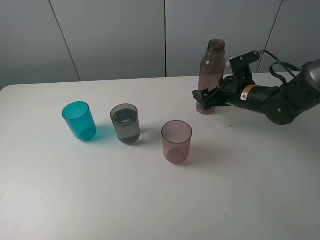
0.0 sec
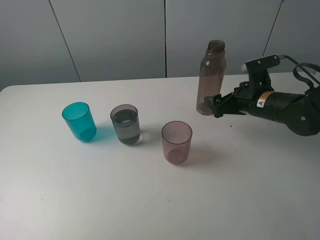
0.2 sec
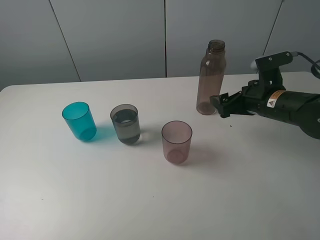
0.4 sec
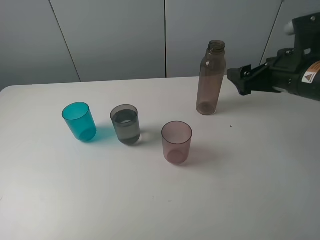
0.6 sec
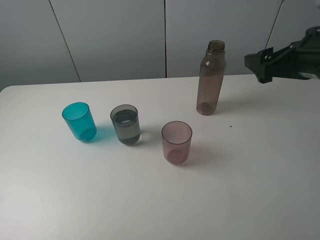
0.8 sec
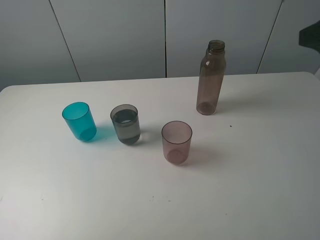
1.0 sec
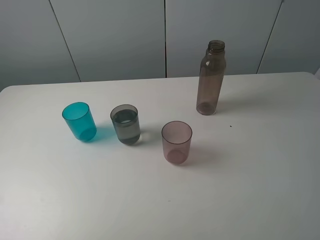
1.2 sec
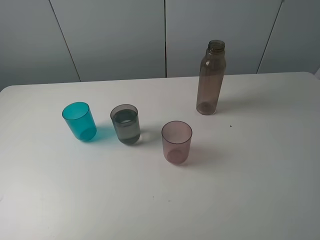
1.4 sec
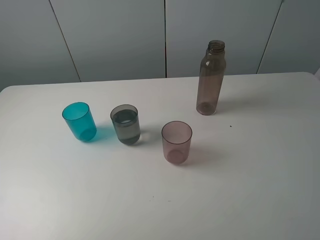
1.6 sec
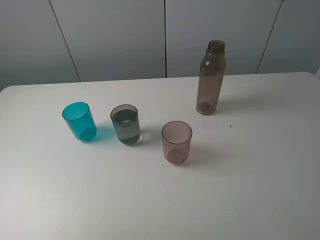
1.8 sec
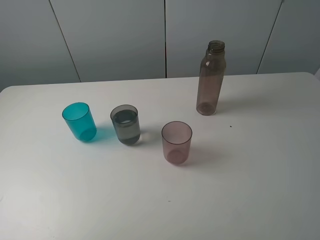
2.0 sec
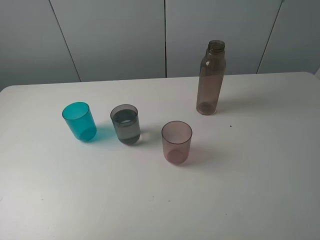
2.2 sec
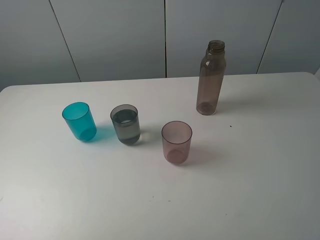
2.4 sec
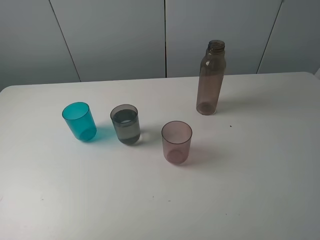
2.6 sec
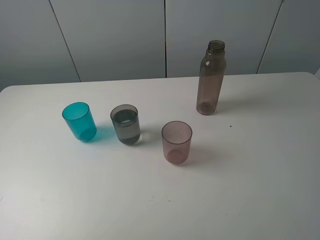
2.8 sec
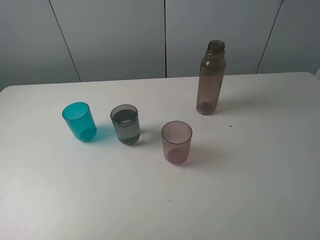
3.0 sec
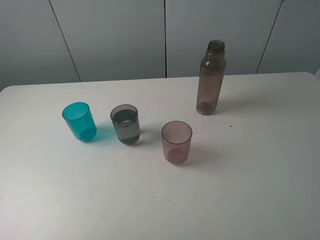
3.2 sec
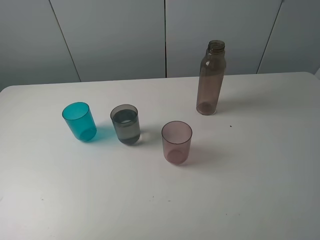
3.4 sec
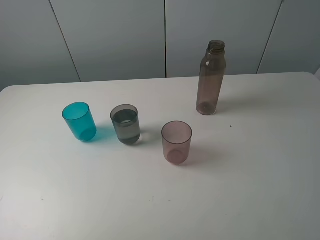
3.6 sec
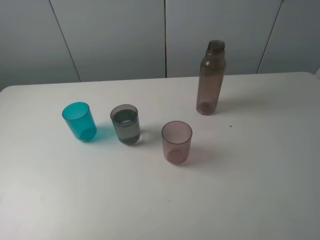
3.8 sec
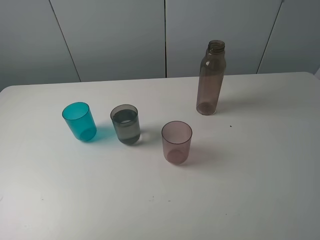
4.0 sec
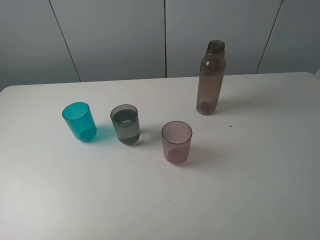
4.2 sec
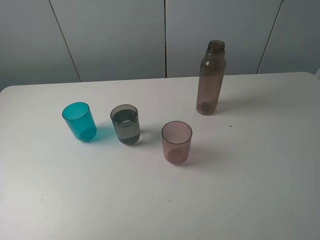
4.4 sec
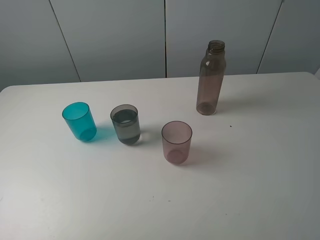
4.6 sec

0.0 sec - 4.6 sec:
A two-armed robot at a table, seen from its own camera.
Task of the whole recording: pick up the bottle filled with water and pour water into the middle cup of the three cups.
0.0 sec - 1.6 sec: The right gripper shifts roughly 40 cm backward and upward.
3.0 sec - 4.6 sec: Both grippers stay about where they are.

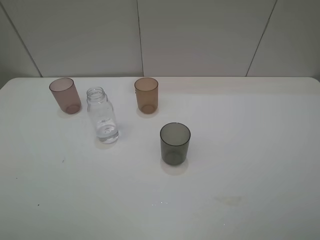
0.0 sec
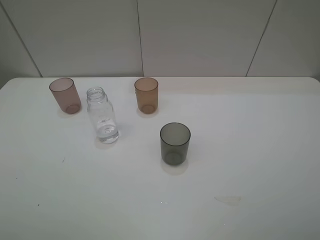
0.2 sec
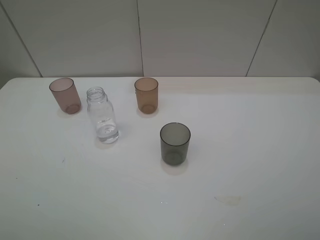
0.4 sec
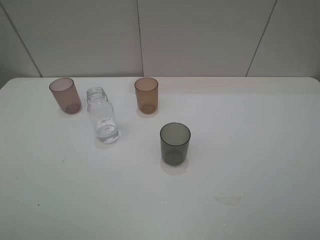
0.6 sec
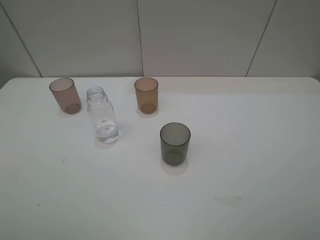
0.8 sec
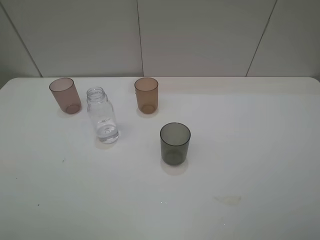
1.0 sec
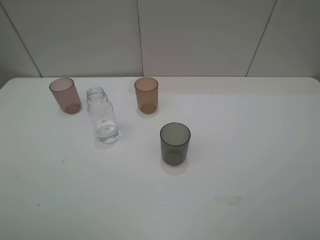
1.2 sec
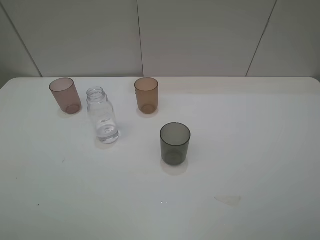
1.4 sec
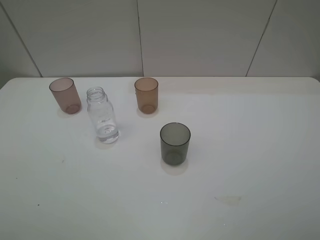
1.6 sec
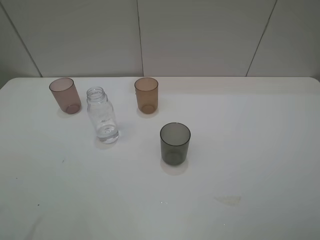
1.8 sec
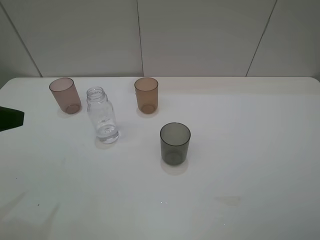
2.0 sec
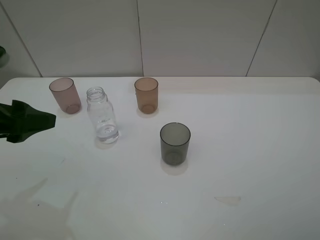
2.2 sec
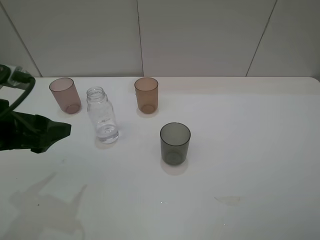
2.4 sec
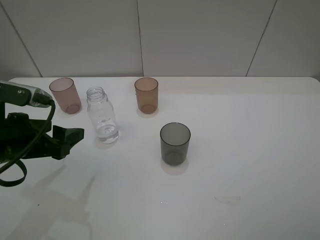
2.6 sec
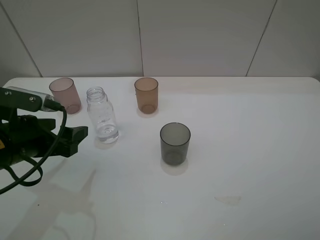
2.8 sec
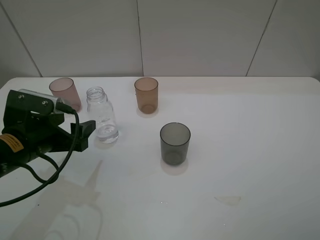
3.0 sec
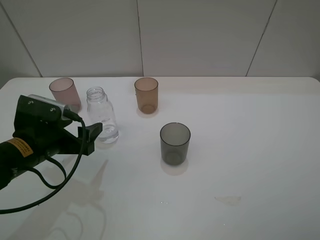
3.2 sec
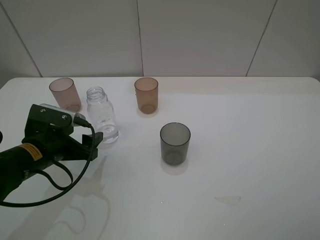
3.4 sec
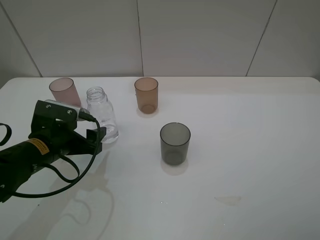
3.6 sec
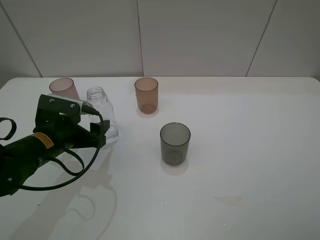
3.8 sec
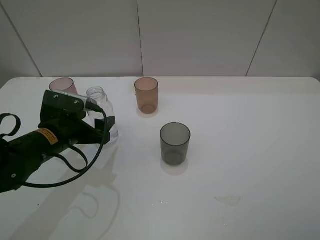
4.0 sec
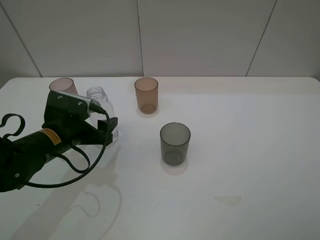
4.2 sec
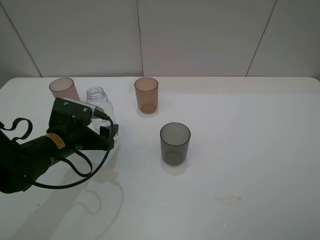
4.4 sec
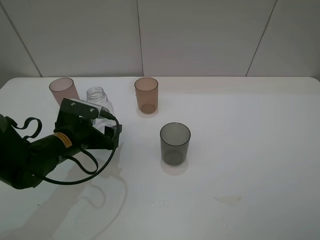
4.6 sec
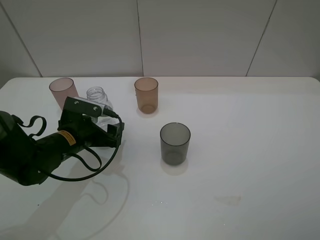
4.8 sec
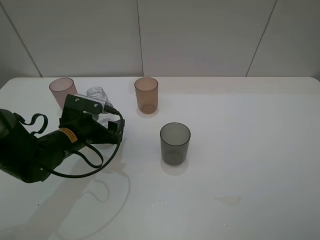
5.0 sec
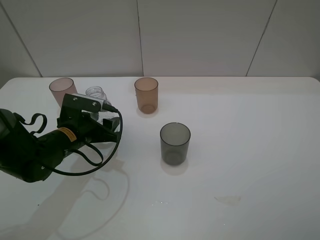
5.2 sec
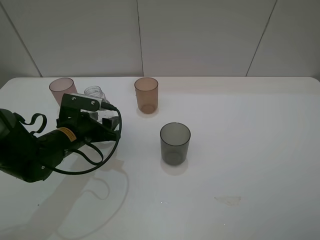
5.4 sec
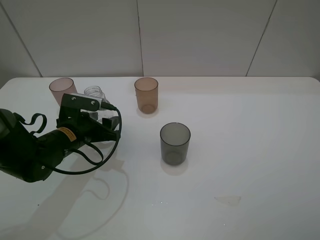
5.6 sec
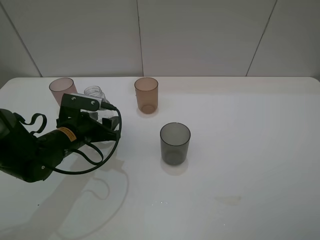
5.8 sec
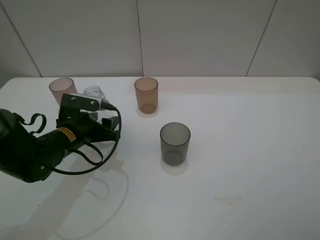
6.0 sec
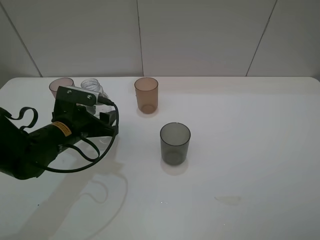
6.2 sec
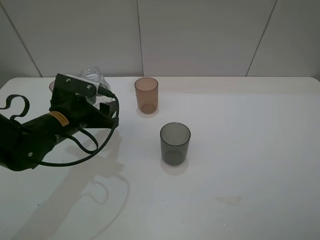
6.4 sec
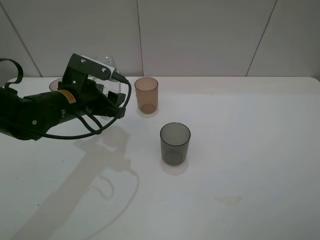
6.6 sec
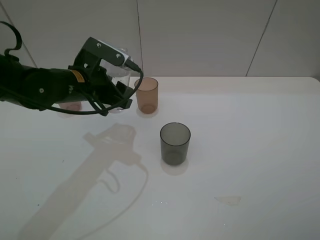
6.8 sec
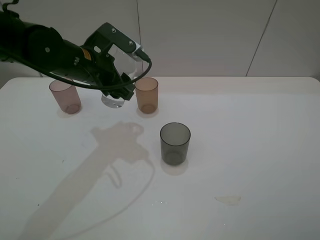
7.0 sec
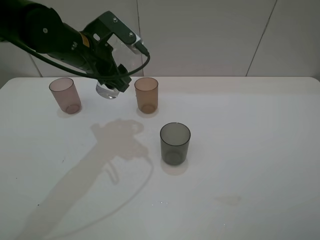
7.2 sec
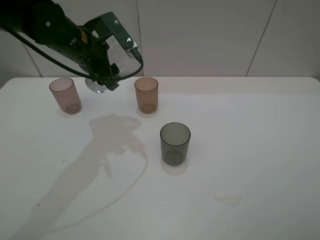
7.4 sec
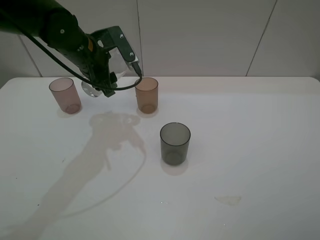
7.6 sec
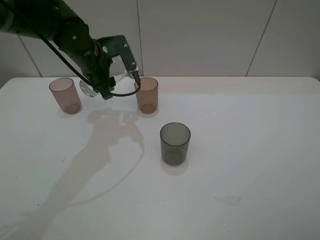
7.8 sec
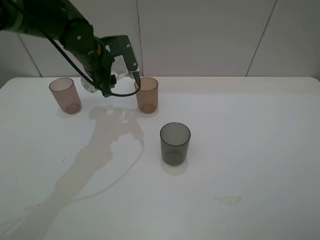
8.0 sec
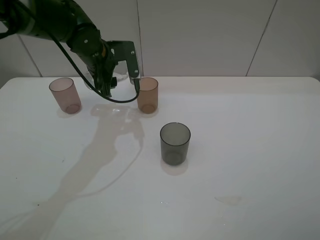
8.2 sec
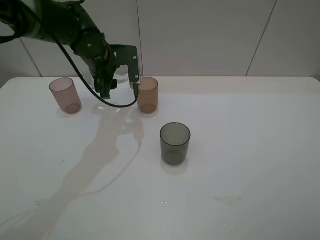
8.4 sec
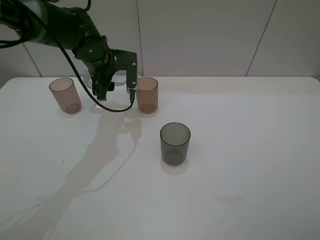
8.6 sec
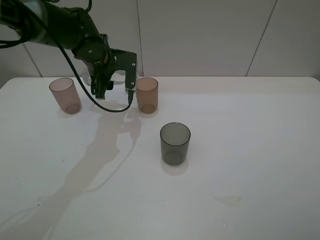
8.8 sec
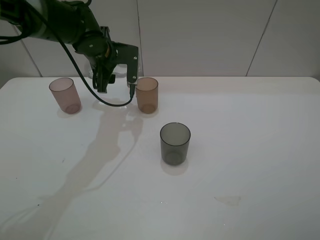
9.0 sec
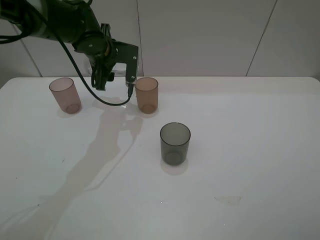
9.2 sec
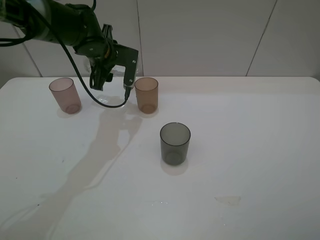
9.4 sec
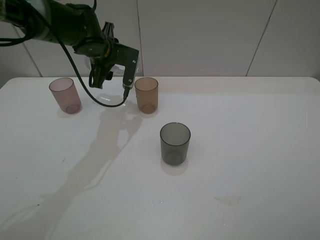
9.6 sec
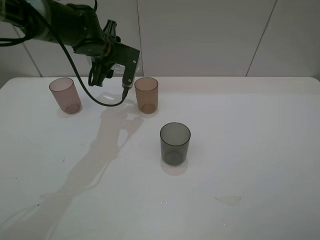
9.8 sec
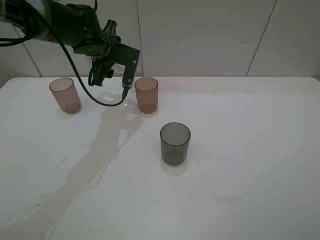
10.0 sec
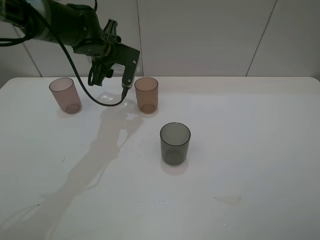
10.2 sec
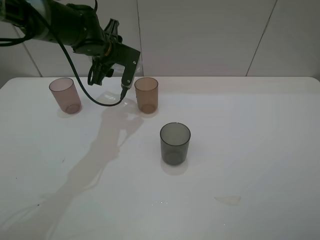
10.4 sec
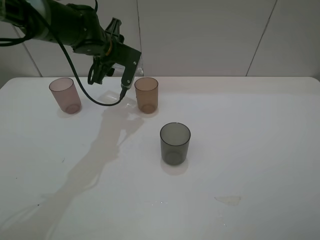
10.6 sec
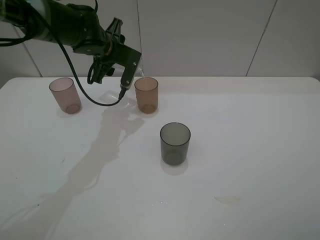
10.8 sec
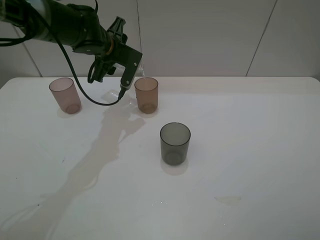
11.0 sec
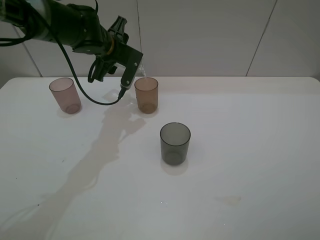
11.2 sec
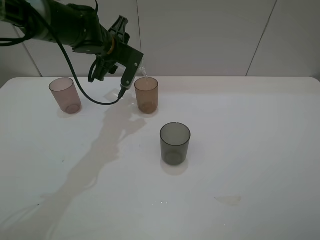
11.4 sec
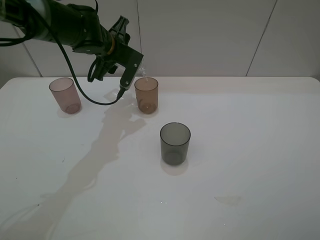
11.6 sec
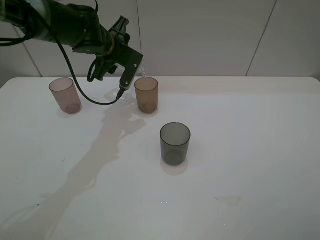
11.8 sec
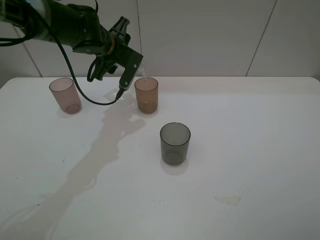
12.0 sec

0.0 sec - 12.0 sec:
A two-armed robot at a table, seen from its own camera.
Task of the whole recording: pick up the bottle filled with water and pour water into the middle cup of the three cups.
Step, 0.0 sec - 5.4 sec: Grasp the transparent bottle with the left gripper.
Step, 5.6 sec - 10.0 sec: Pour water from transparent bottle to brown cup with the left gripper.
1.6 sec - 3.0 sec: The left gripper heads downward, forward and to the right, covering approximately 25 cm.
3.0 sec - 4.4 sec: The left gripper moves downward, about 5 cm.
4.4 sec - 6.0 sec: The left gripper closes its fingers.
6.0 sec - 7.6 sec: The left gripper goes approximately 15 cm upward and forward.
7.6 sec - 9.0 sec: The left gripper changes place by about 5 cm.
9.0 sec - 10.4 sec: The grippers stay close to where they were, moving slightly.
10.4 sec - 12.0 sec: The grippers stay close to where they were, moving slightly.

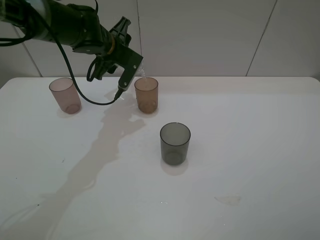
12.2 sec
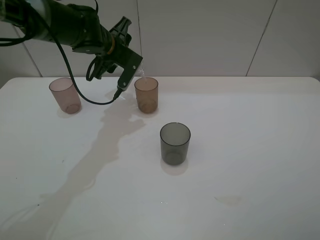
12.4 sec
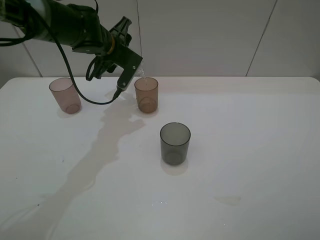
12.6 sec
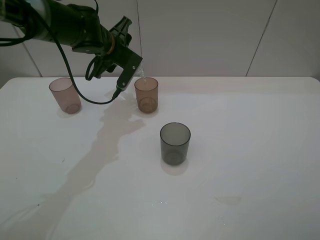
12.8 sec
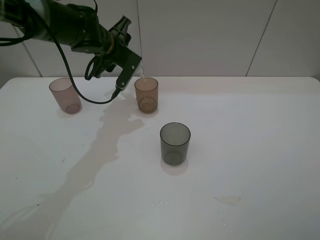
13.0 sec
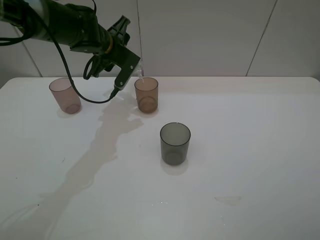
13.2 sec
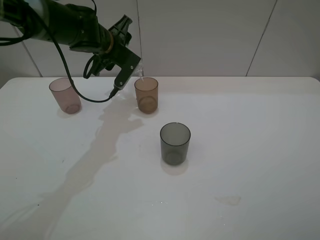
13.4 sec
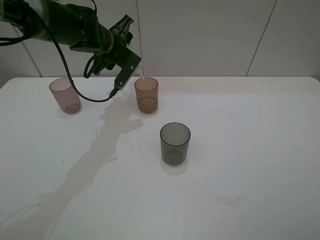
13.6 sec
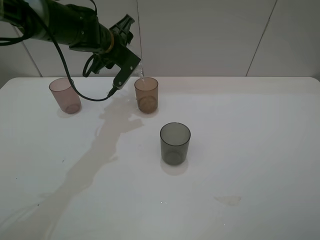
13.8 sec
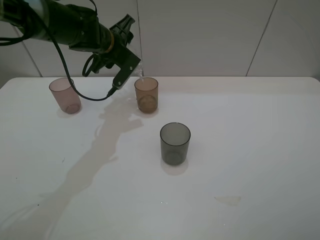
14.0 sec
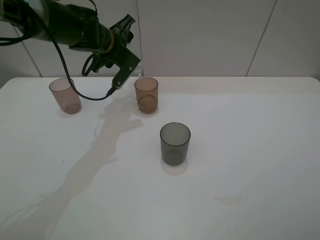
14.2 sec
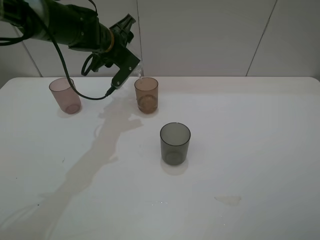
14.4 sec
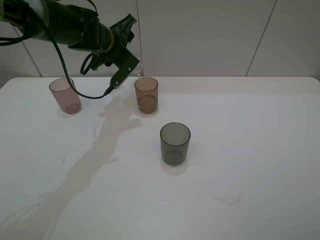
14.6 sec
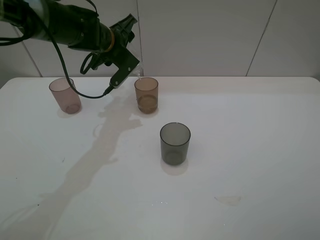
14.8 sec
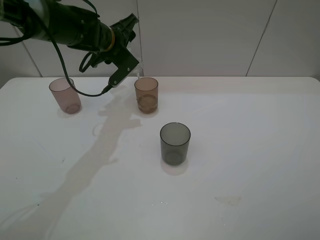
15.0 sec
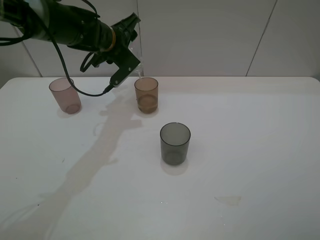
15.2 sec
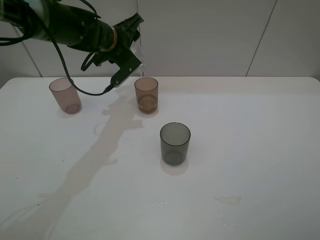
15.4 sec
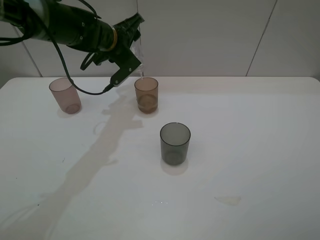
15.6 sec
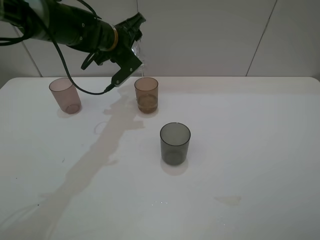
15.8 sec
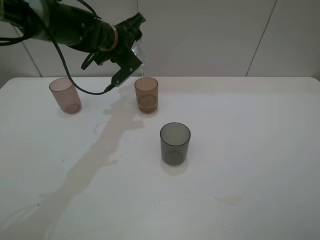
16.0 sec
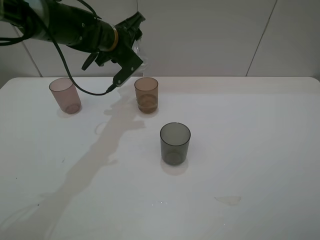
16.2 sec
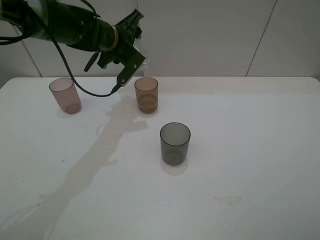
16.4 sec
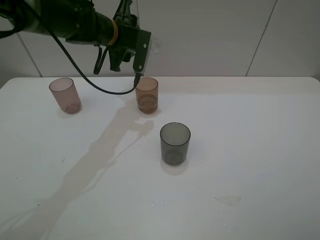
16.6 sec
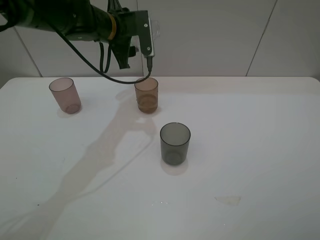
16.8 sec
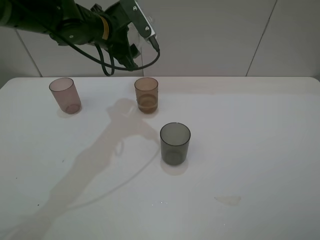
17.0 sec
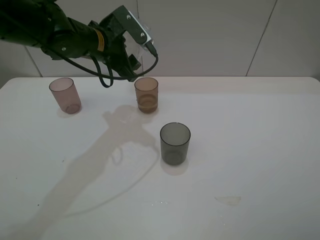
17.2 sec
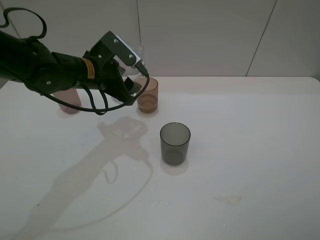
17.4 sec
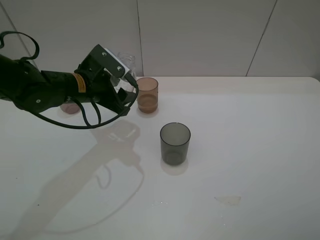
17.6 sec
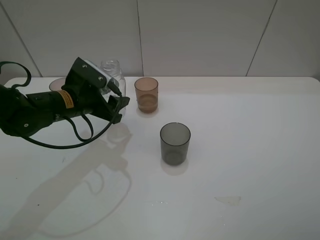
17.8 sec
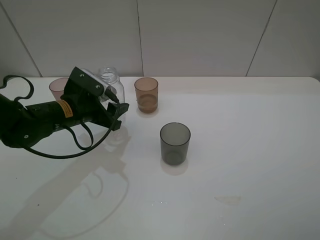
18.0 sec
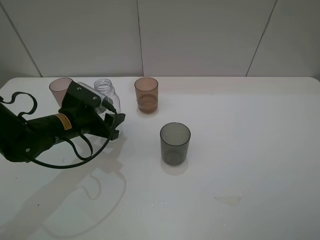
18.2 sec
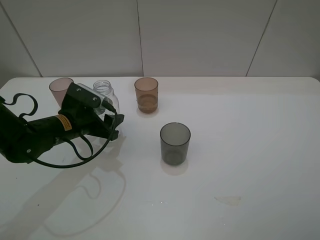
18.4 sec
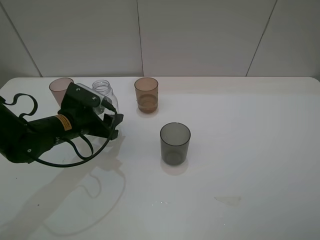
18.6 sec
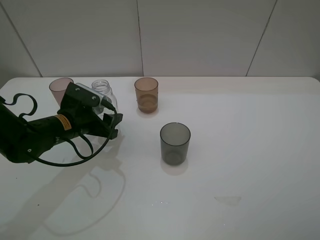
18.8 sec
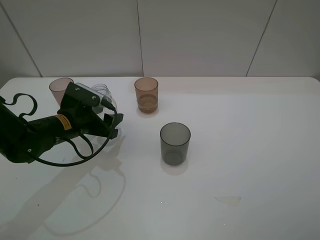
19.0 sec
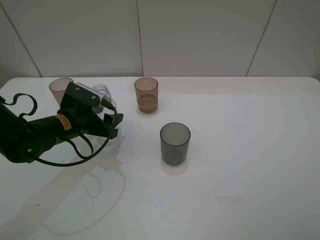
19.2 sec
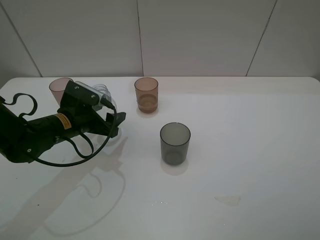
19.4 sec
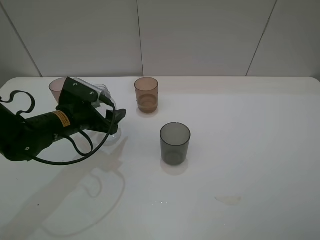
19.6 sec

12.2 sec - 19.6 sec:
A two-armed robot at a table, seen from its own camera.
Task of the whole recording: pick up the bottle filled with water and pour water into the middle cup of the three cups.
12.2 sec - 15.2 sec: The grippers make only small movements.
16.6 sec - 18.2 sec: The left gripper moves backward, downward and to the left, some 20 cm.
18.2 sec - 19.6 sec: The left gripper opens up.
